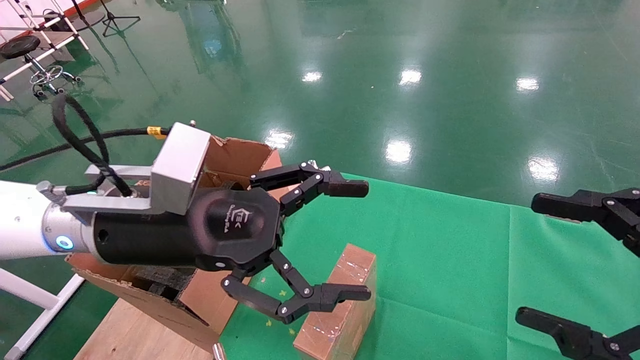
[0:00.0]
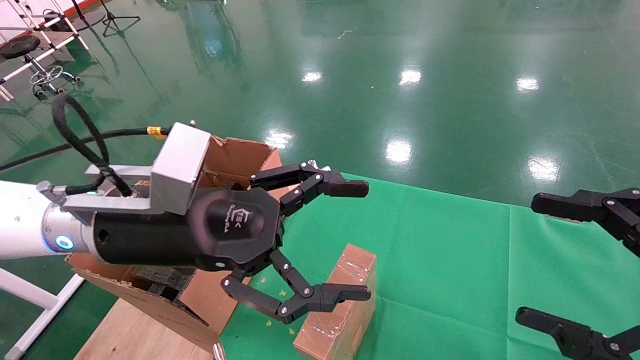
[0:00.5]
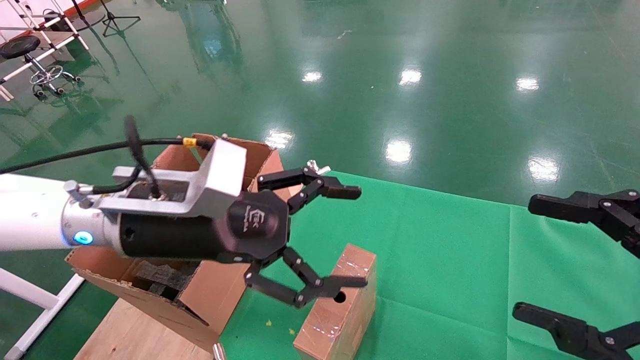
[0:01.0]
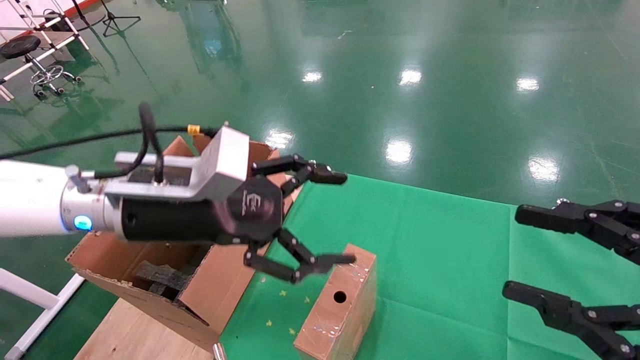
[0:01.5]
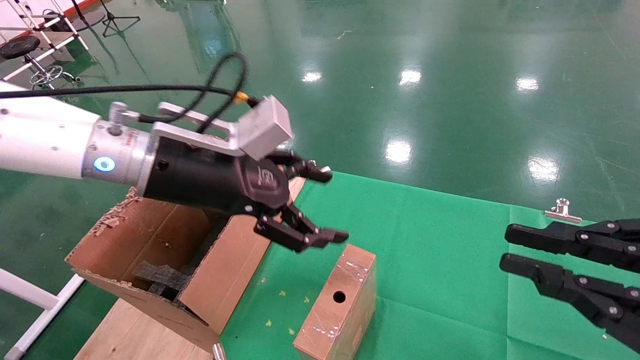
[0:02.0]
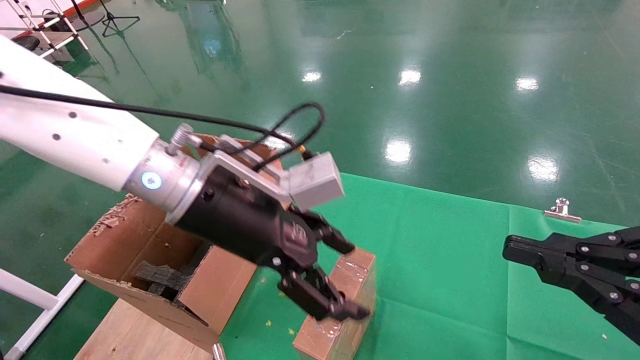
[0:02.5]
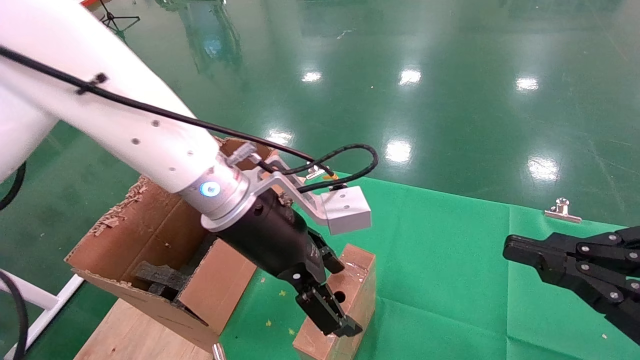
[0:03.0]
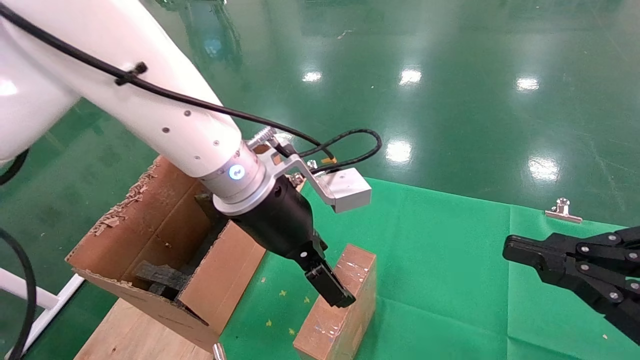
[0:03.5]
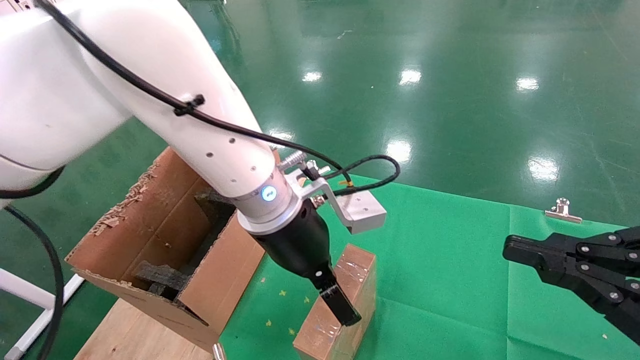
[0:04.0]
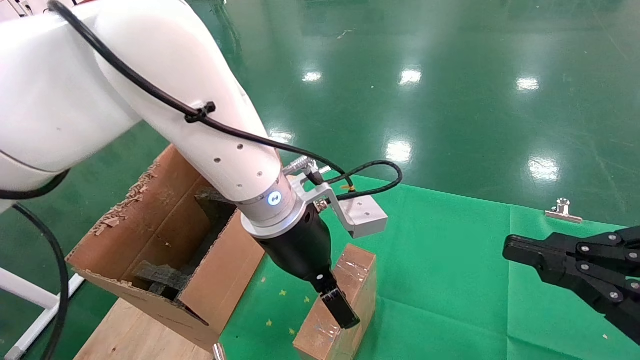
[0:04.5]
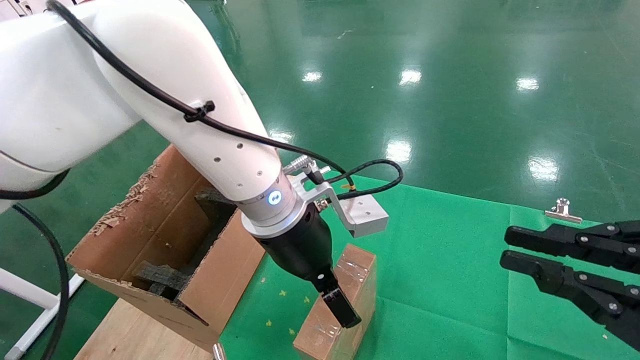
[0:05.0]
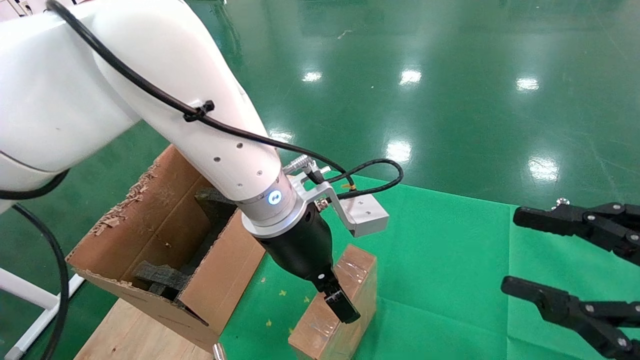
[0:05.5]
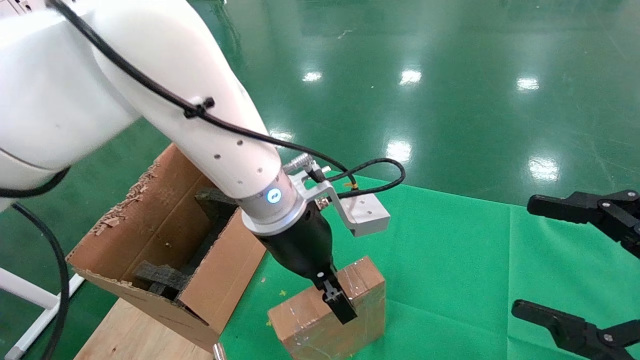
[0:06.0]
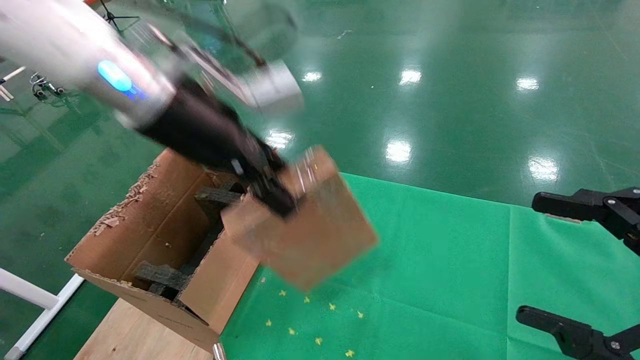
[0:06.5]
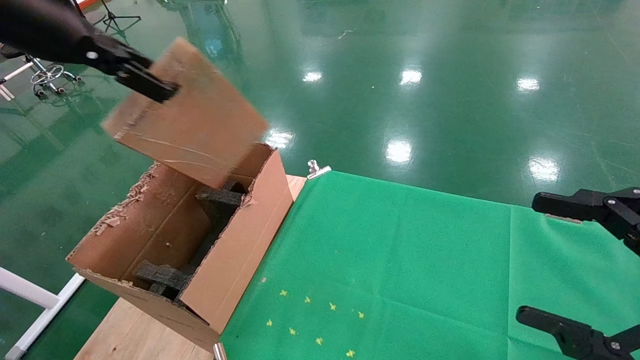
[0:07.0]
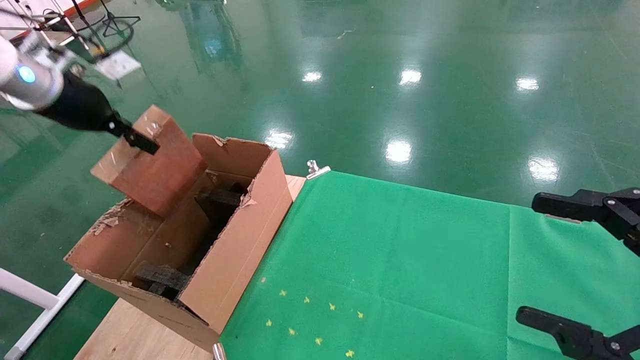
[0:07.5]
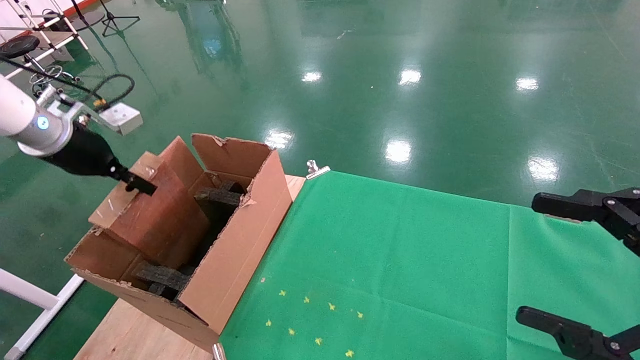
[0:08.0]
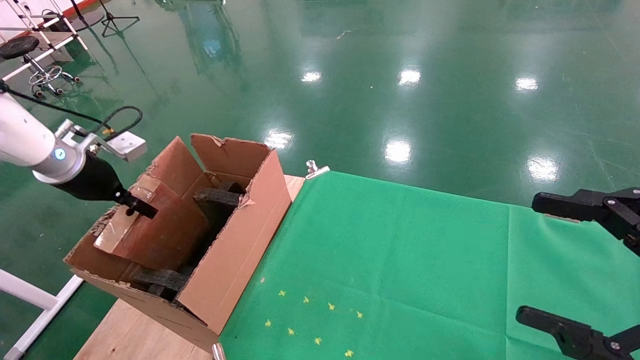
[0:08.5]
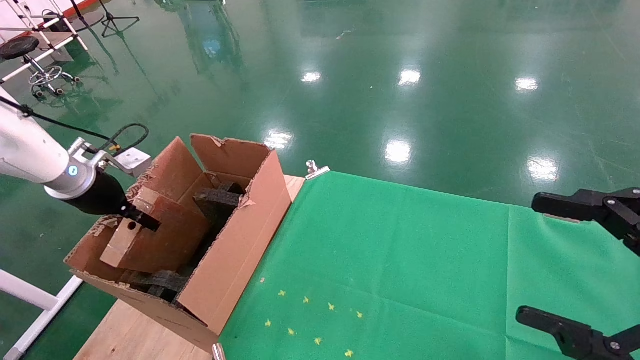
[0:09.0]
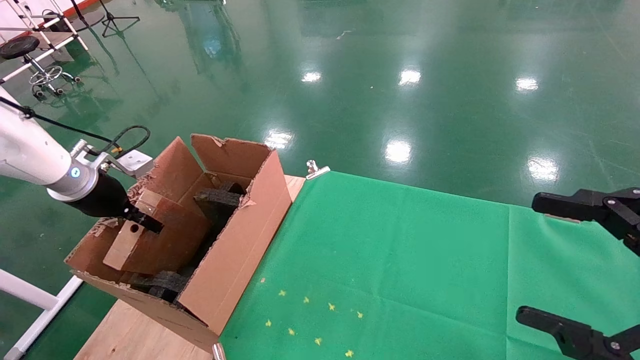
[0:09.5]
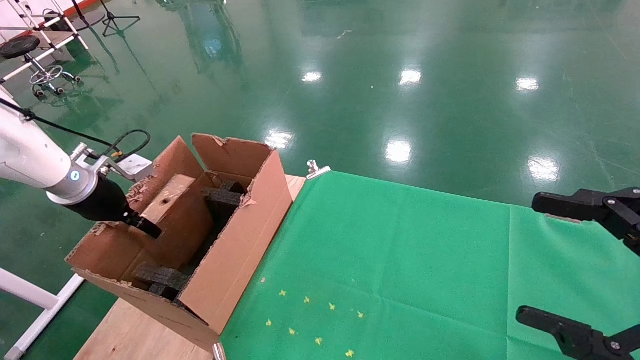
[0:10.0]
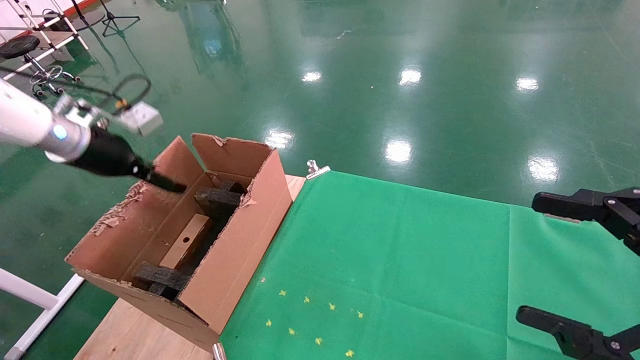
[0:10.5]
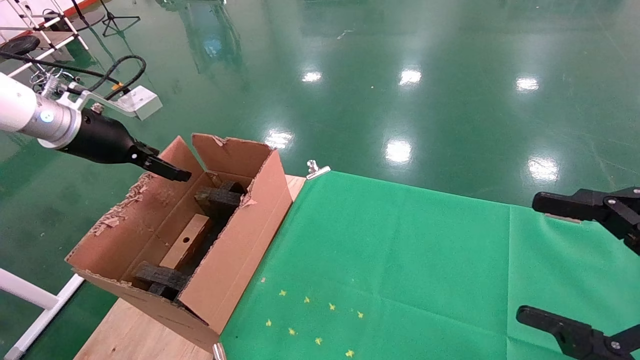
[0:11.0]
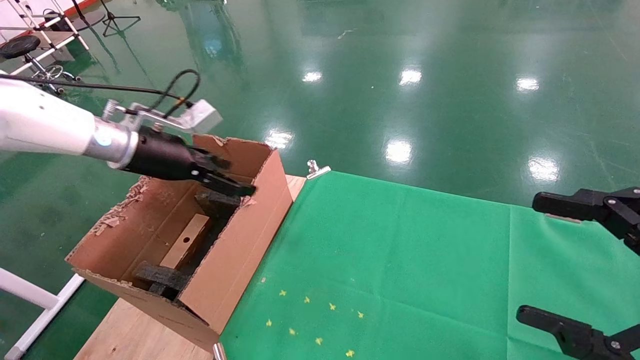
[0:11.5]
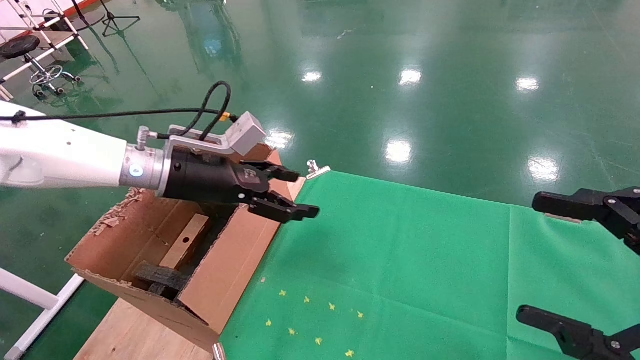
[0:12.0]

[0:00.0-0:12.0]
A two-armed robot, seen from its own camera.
Task of the whole recording: using a robotic arm to pick up a cardboard box and palace it the carton.
Step, 0:01.0 to 0:05.5: Pick up the mouse and the power cord paper box.
Step, 0:06.0 to 0:10.0: Place the mouse and the power cord paper box into the container.
0:00.0 to 0:02.0: The right gripper closes, while the left gripper shifts about 5 cm forward.
0:02.0 to 0:04.0: The left gripper moves to the right, approximately 10 cm.
0:04.0 to 0:06.0: The left gripper closes its fingers. The right gripper opens its fingers.
0:06.0 to 0:08.0: The left gripper is displaced to the left by approximately 35 cm.
0:08.0 to 0:10.0: The left gripper shifts about 10 cm downward.
0:10.0 to 0:12.0: The left gripper travels to the right by about 20 cm, and opens its fingers.

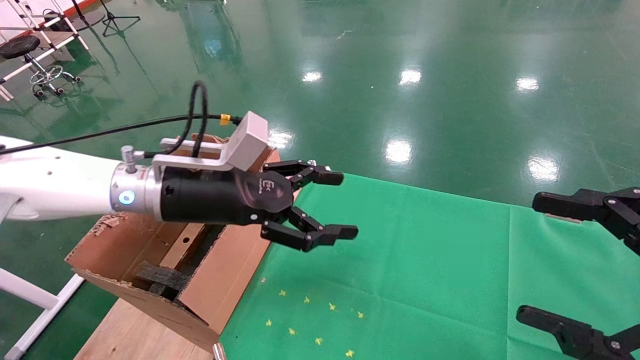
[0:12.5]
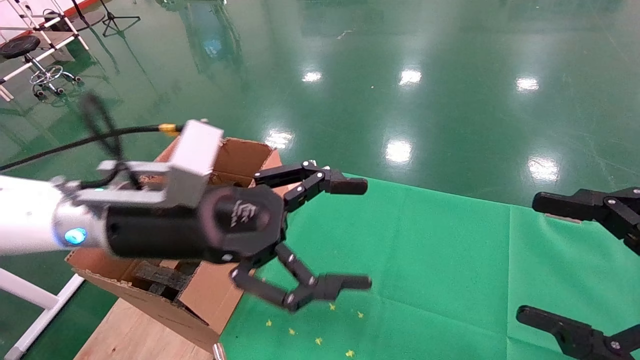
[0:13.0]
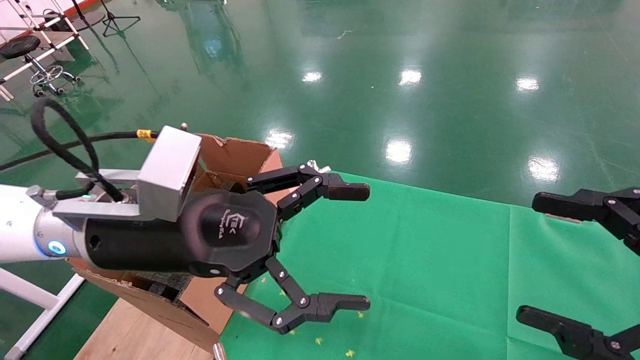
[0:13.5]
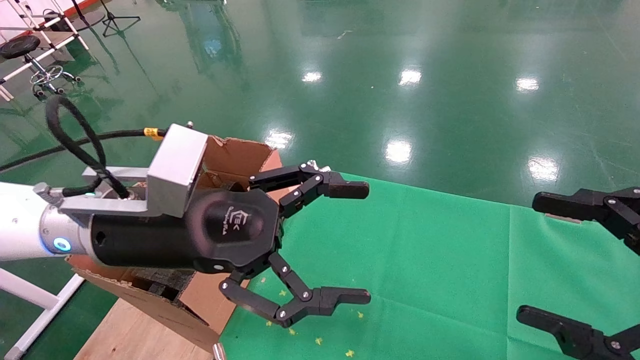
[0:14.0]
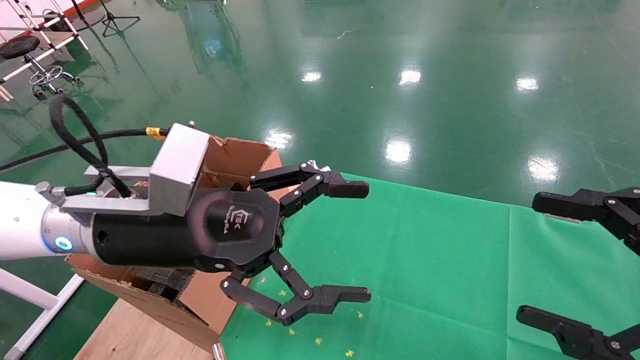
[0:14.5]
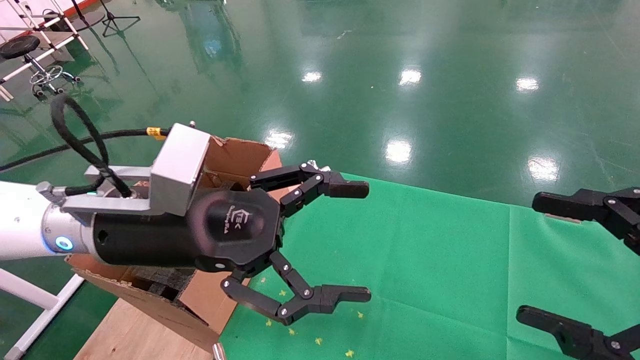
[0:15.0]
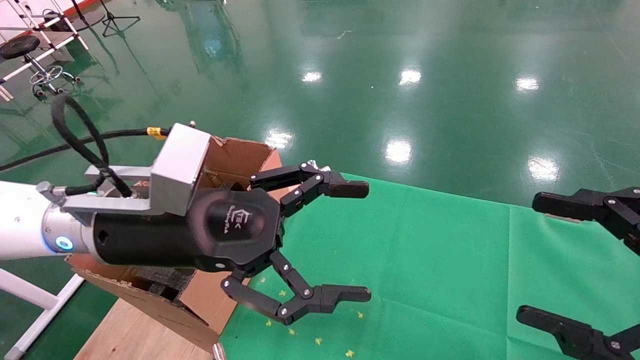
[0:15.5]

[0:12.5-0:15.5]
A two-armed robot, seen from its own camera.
Task of the whole recording: using a robotic arm to pick up a cardboard box and palace it the carton.
0:12.5 to 0:14.0: The left gripper moves backward, some 10 cm.
0:14.0 to 0:15.5: The two grippers keep their place.

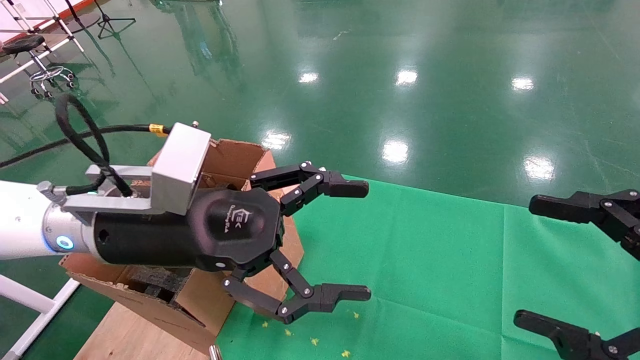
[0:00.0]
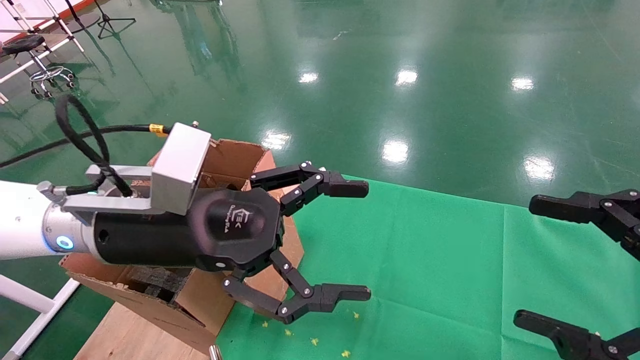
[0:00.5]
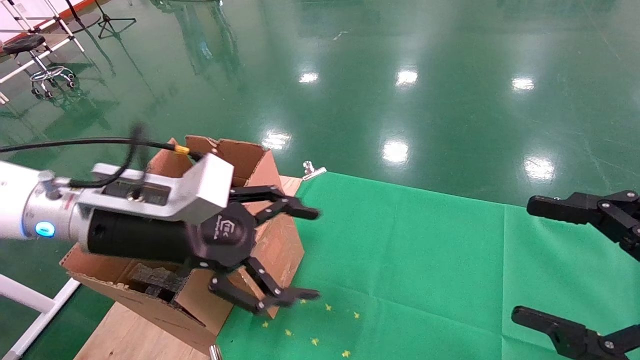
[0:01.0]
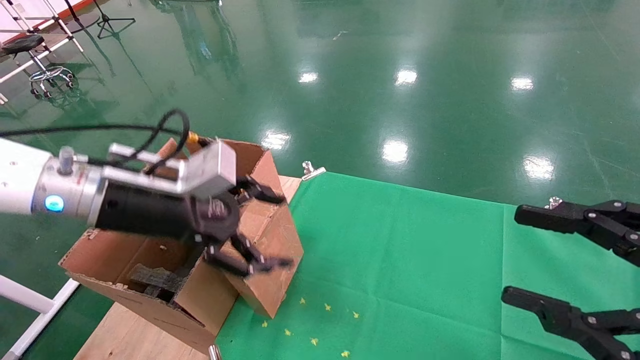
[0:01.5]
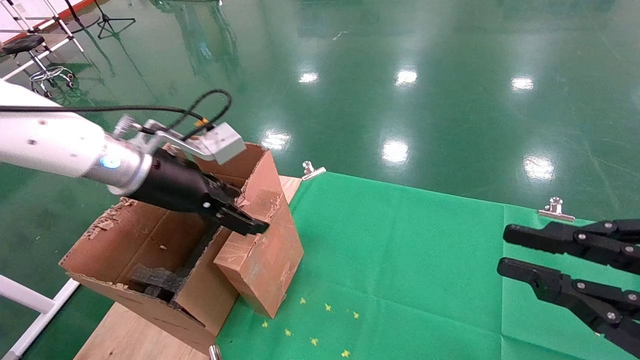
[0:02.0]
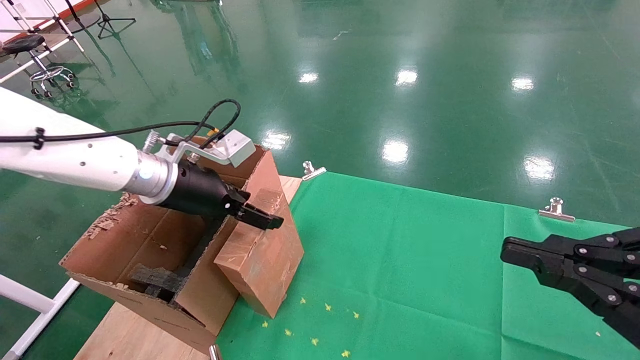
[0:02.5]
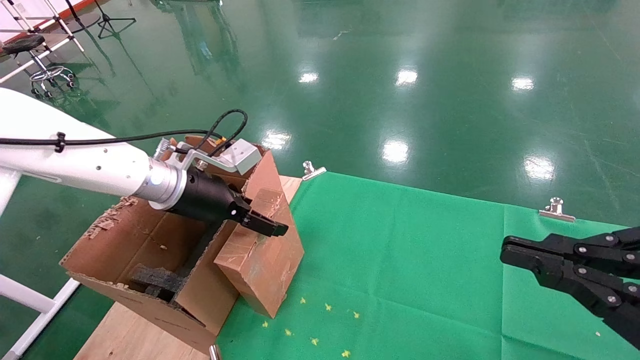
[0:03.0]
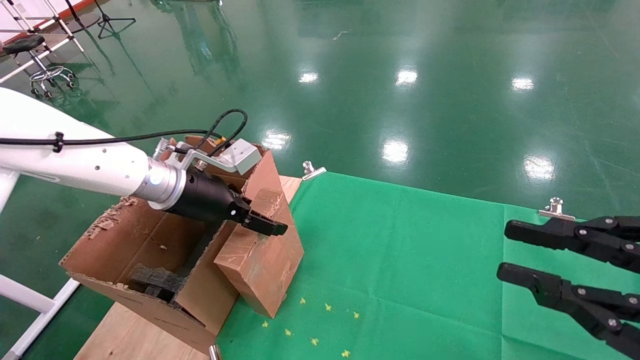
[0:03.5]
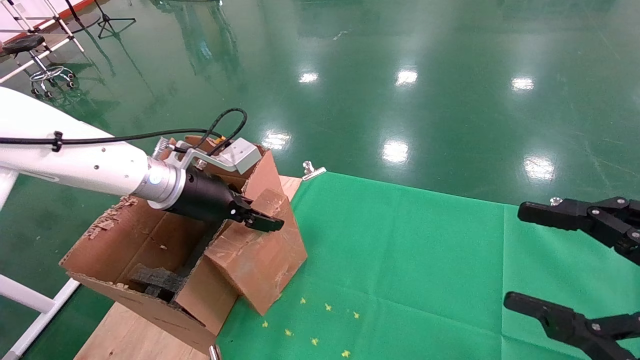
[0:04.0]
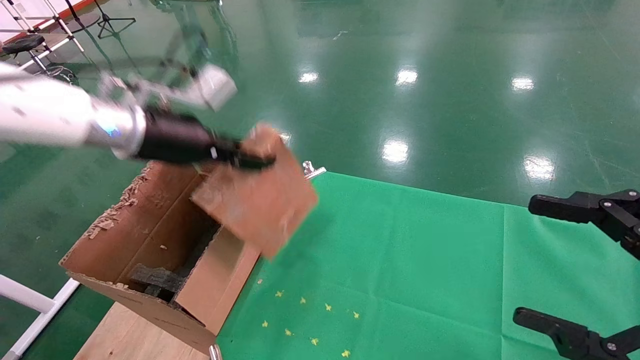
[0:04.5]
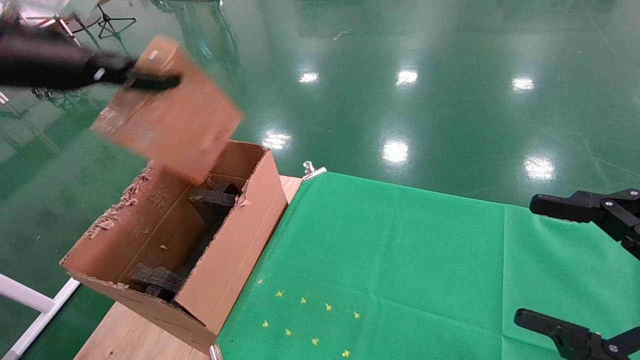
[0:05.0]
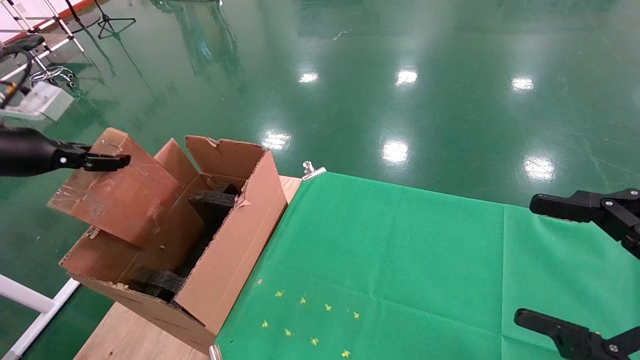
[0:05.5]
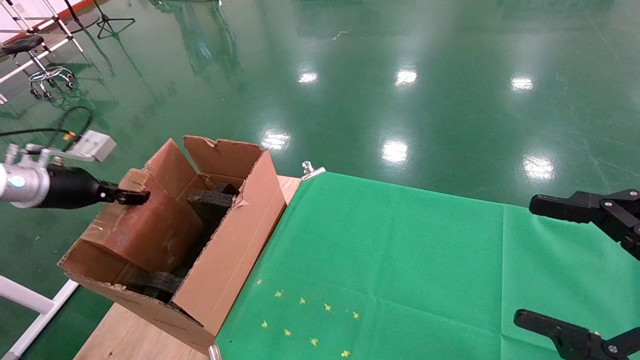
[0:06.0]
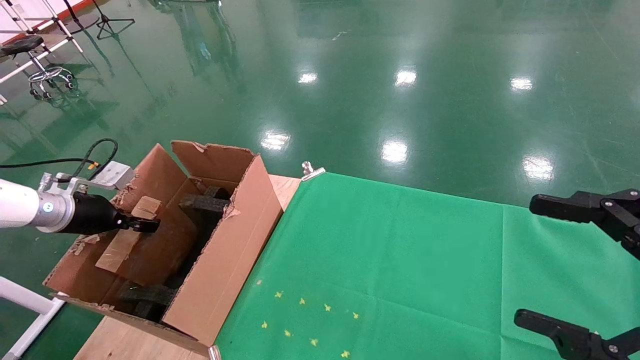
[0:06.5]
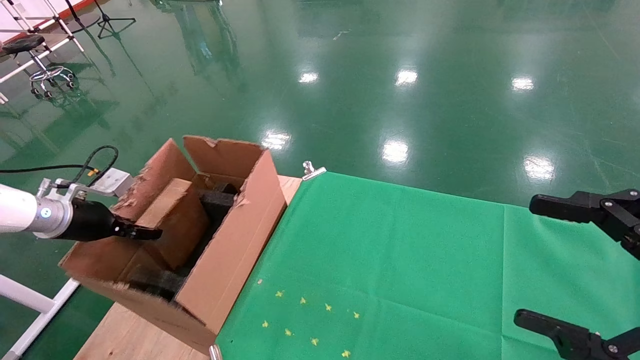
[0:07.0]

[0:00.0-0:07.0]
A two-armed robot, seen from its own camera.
Task of the whole recording: using a robotic arm to pick up a cardboard box and palace it the carton.
Step, 0:01.0 to 0:04.0: Pick up the mouse and the power cord paper box.
0:00.0 to 0:02.0: The right gripper closes its fingers. The left gripper travels forward and to the left by roughly 10 cm.
0:02.0 to 0:03.5: The left gripper ends up roughly 5 cm from where it was.
0:03.5 to 0:05.0: The left gripper is displaced upward, to the left and backward by roughly 20 cm, and closes its fingers. The right gripper opens.
0:05.0 to 0:07.0: The left gripper goes roughly 25 cm downward and to the left.
